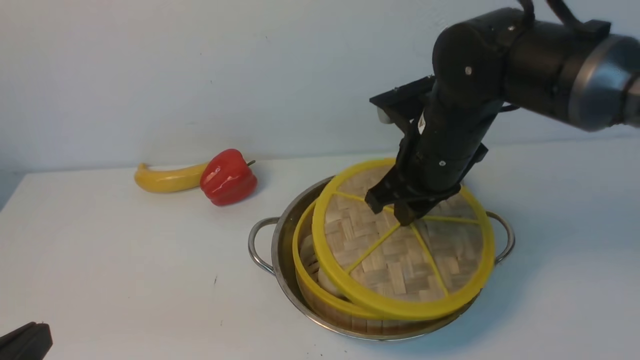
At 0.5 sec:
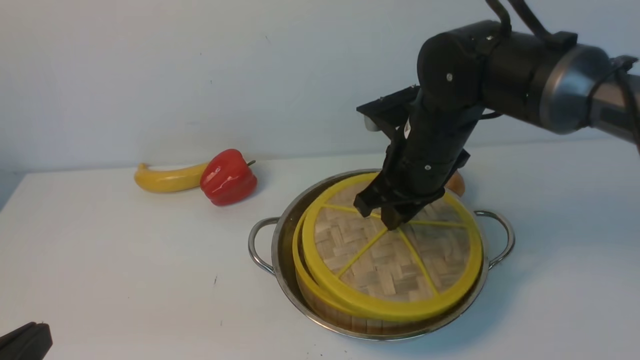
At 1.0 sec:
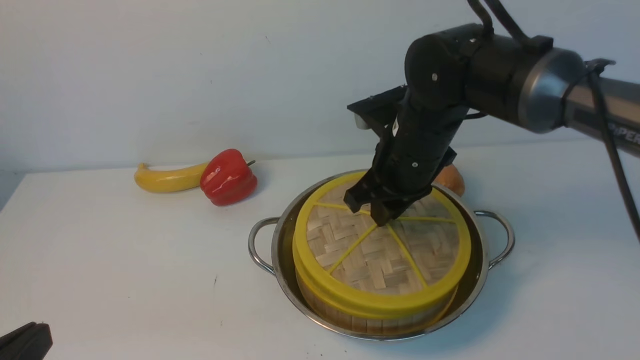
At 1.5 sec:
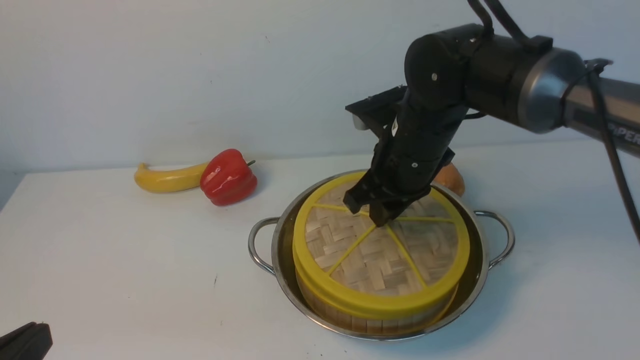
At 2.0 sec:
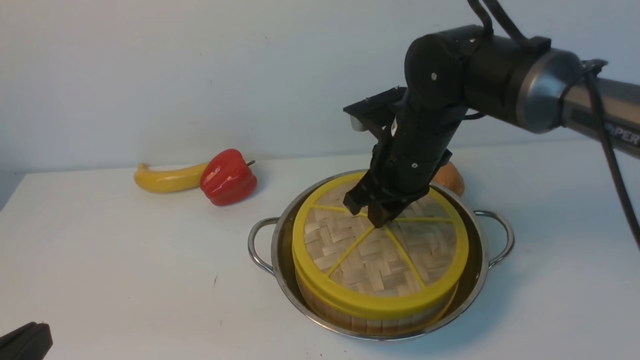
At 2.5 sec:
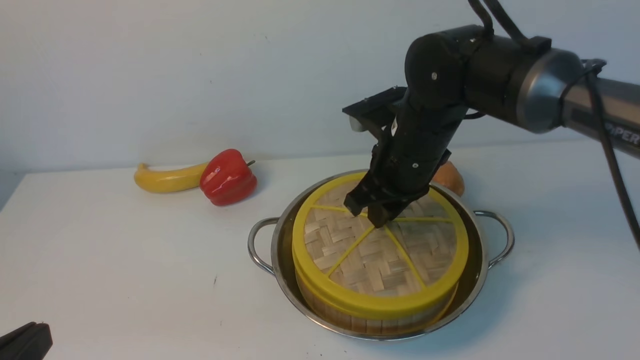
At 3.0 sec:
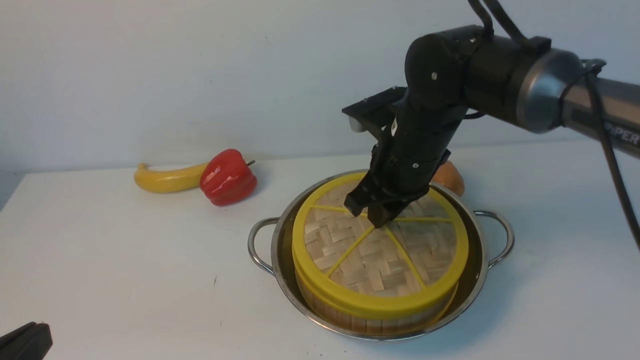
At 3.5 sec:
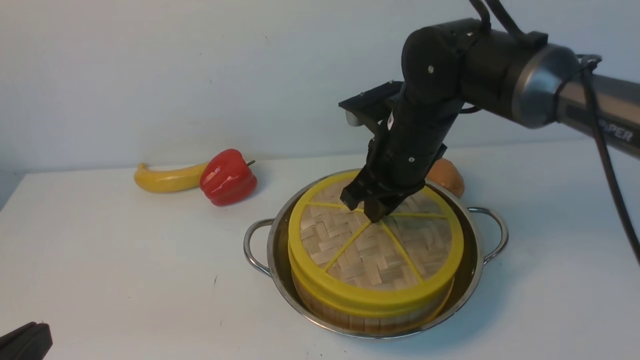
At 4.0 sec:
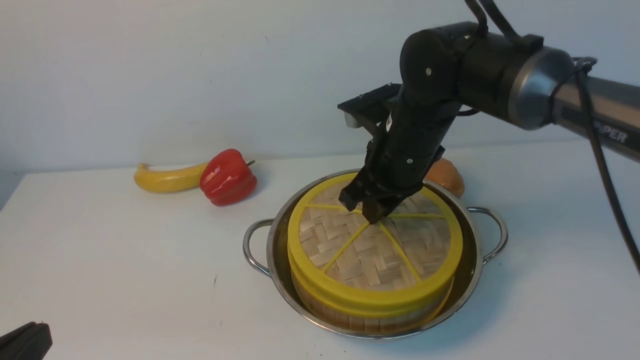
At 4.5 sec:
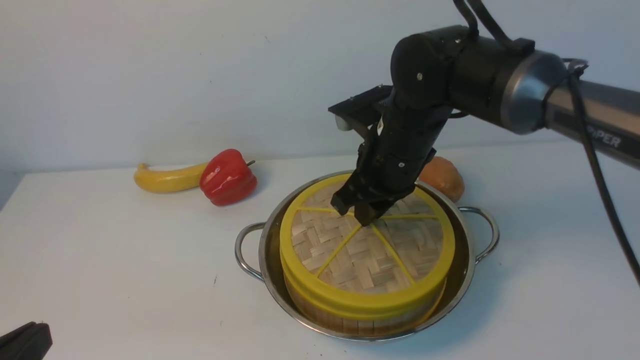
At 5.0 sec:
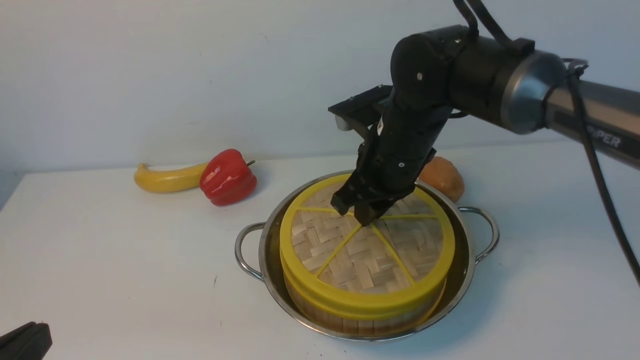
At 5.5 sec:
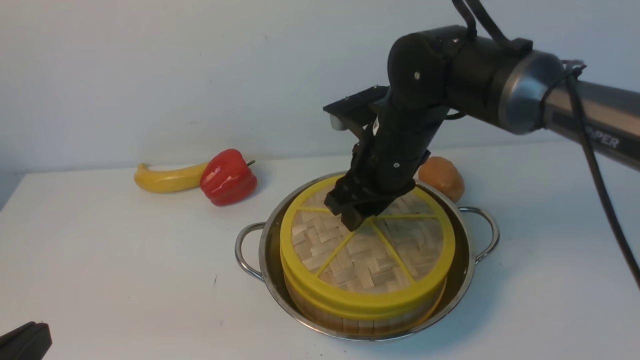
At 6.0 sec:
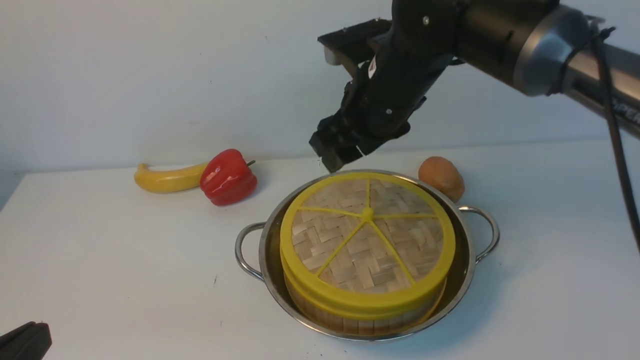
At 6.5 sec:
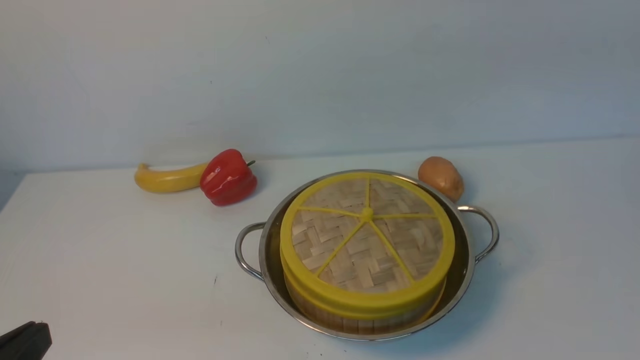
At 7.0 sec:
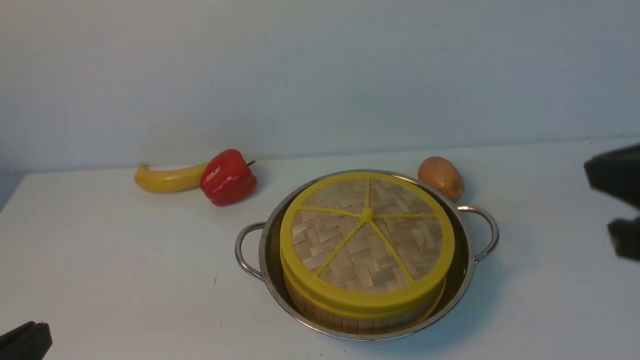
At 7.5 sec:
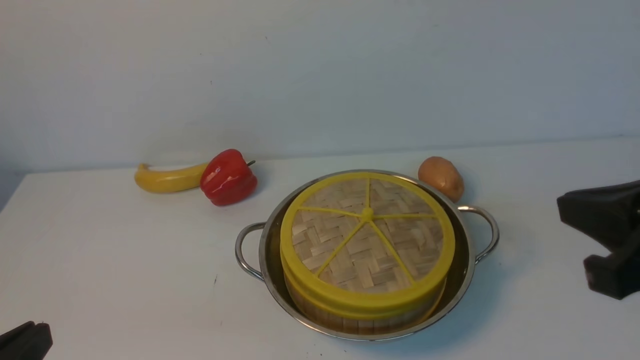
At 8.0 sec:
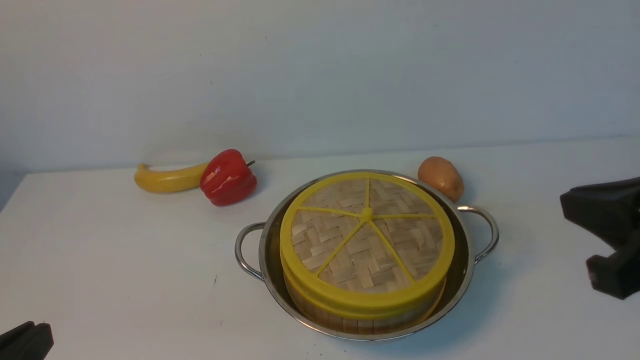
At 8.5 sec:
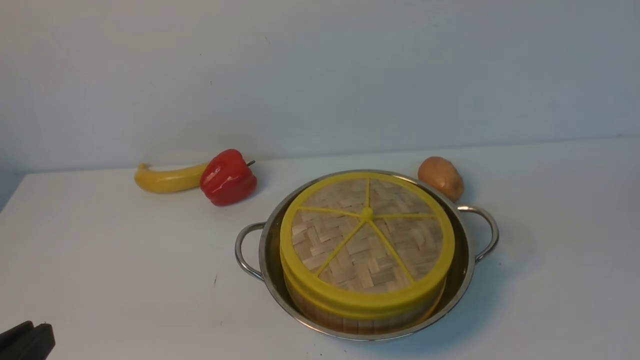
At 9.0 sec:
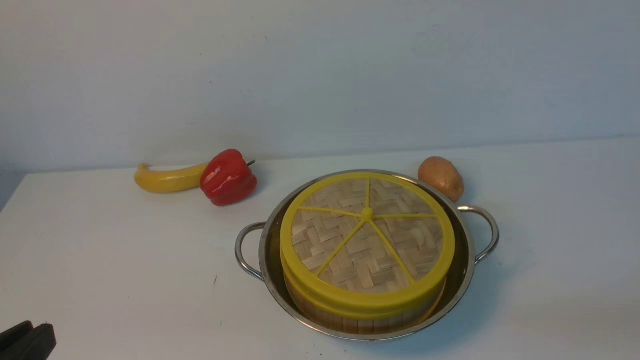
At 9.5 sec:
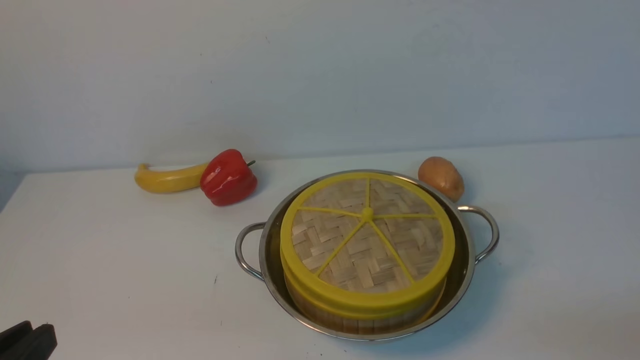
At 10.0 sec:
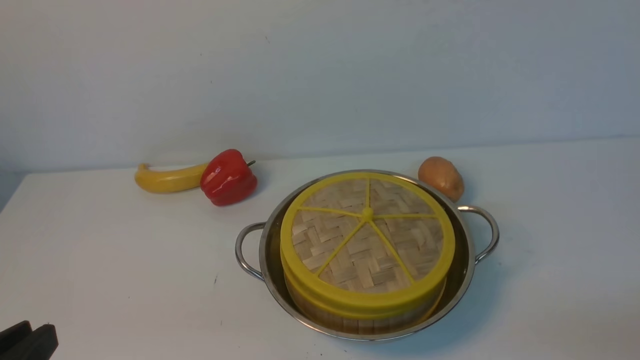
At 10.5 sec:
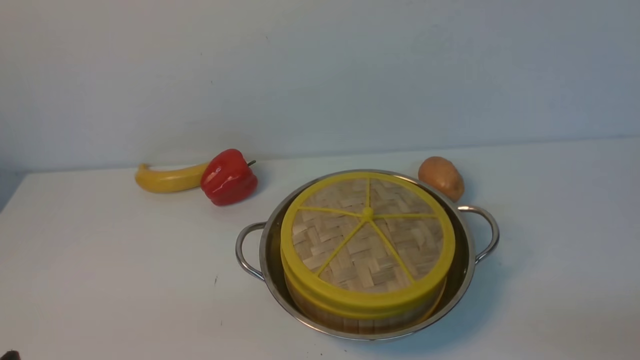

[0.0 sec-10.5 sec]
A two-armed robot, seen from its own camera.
Task of the whole recording: place the steamer in the pot on the white table, and put the lid on the steamer.
Step, 0.0 sec to 6.5 sec: use the right arm to place the steamer lid on the steamer.
0.0 sec to 2.0 sec: There are only small adjustments of the grippers.
2.0 sec to 4.0 sec: Neither gripper changes place.
4.0 sec to 6.5 sec: The right gripper moves upward, backward and to the right, roughly 25 cm, and closes its fingers.

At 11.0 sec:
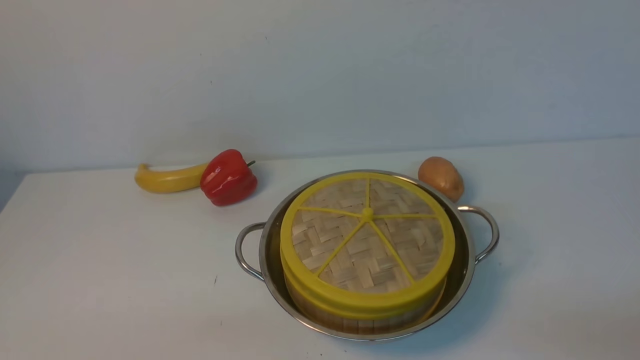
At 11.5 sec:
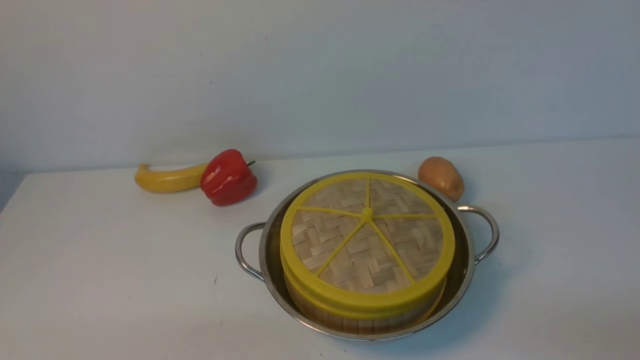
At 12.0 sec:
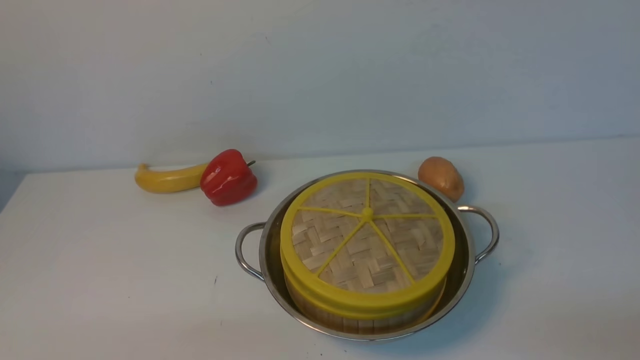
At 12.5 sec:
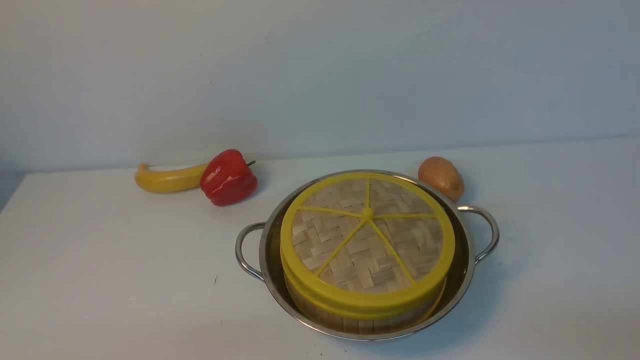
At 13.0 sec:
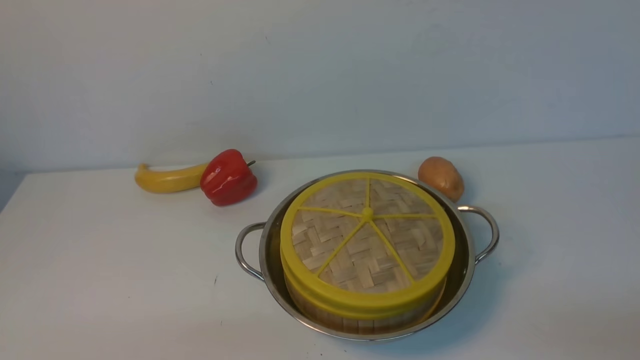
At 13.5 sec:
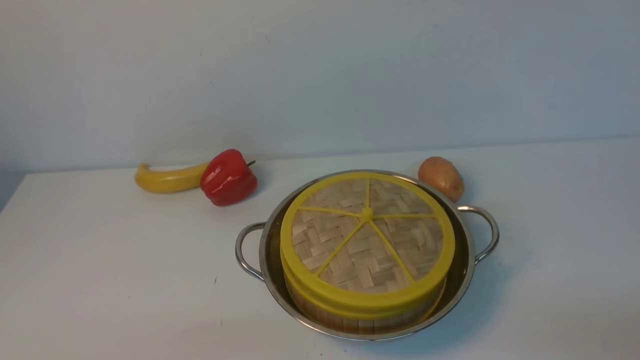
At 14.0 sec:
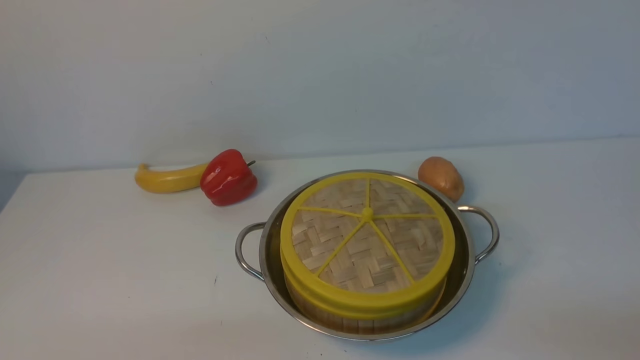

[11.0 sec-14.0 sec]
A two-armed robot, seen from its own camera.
Task of the whole recording: place the steamer in the pot on the white table, and put the lid on the steamer.
12.5 sec to 14.0 sec: Both grippers stay put.
